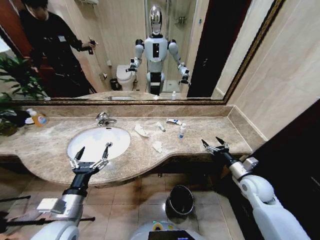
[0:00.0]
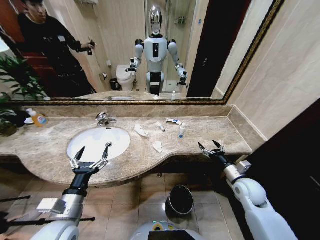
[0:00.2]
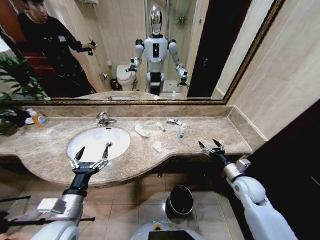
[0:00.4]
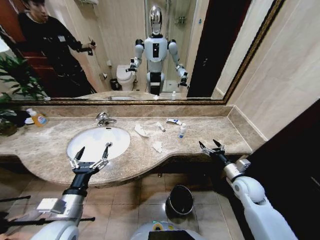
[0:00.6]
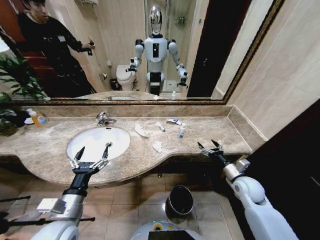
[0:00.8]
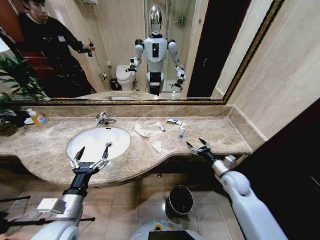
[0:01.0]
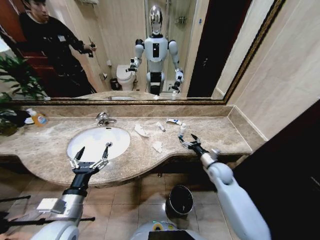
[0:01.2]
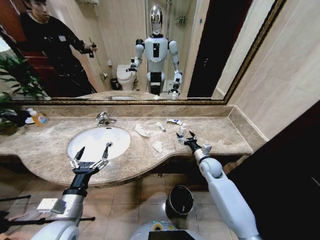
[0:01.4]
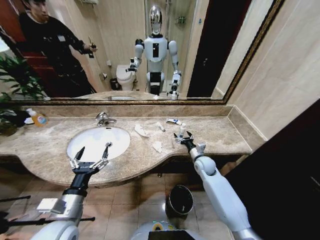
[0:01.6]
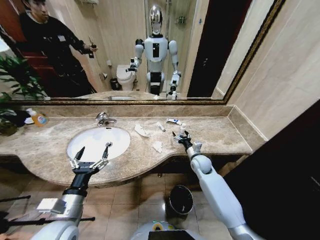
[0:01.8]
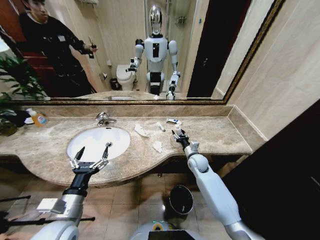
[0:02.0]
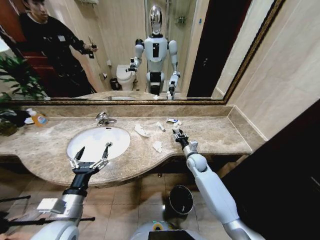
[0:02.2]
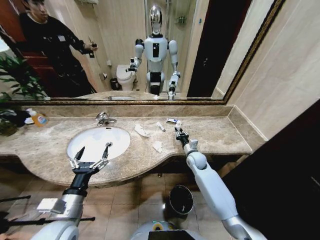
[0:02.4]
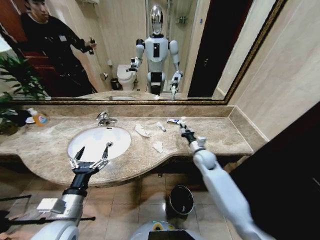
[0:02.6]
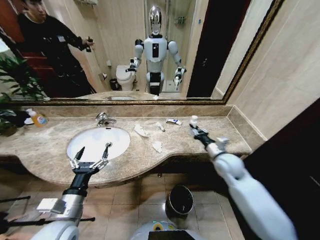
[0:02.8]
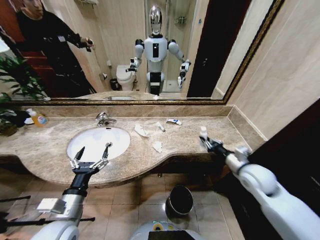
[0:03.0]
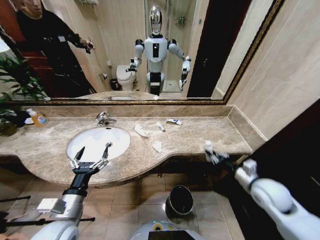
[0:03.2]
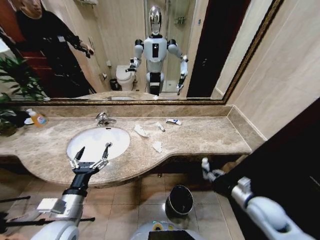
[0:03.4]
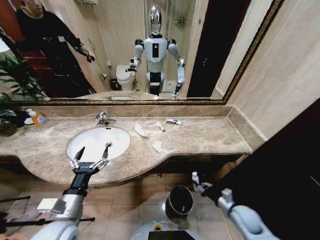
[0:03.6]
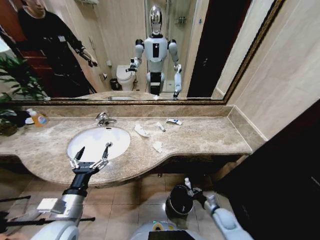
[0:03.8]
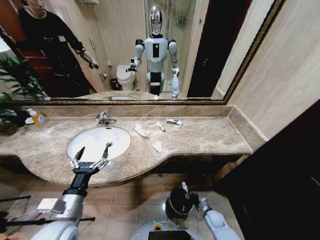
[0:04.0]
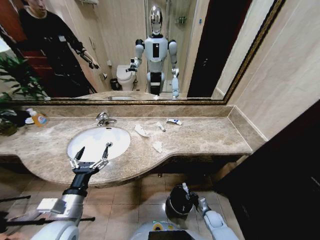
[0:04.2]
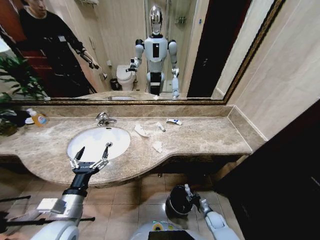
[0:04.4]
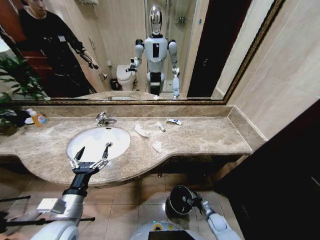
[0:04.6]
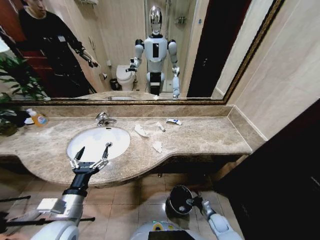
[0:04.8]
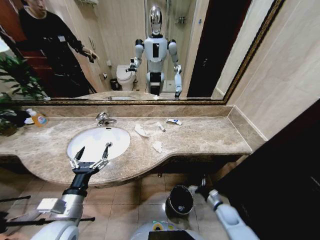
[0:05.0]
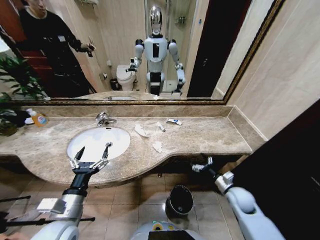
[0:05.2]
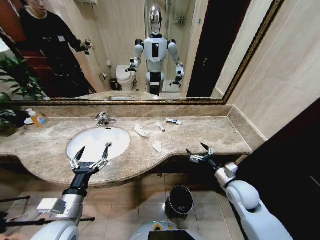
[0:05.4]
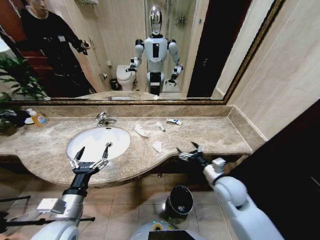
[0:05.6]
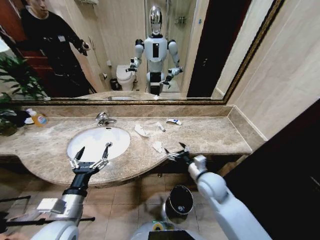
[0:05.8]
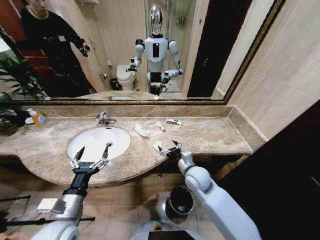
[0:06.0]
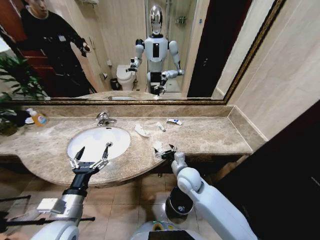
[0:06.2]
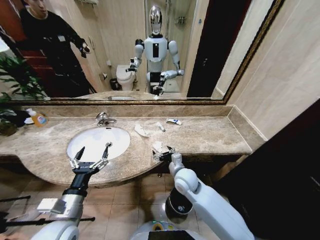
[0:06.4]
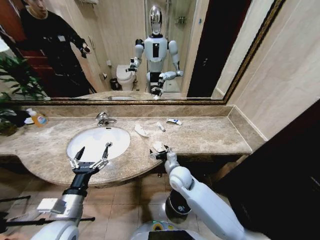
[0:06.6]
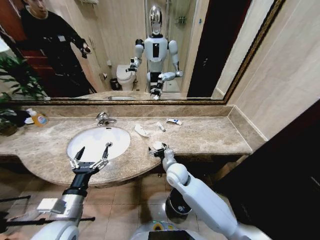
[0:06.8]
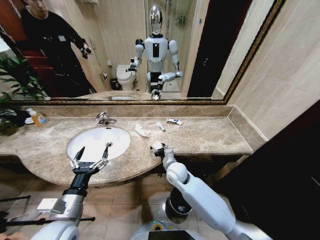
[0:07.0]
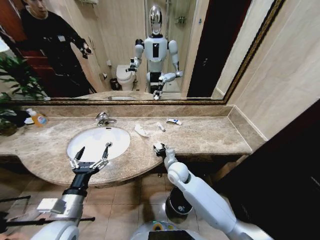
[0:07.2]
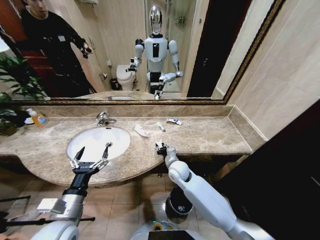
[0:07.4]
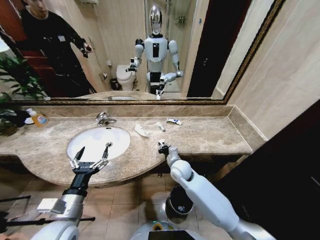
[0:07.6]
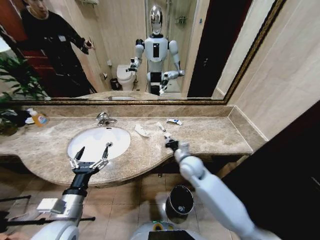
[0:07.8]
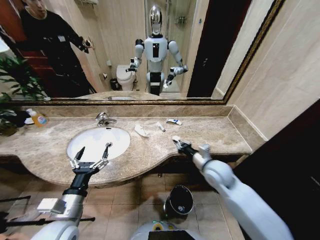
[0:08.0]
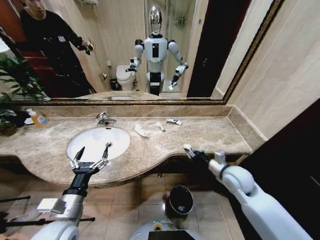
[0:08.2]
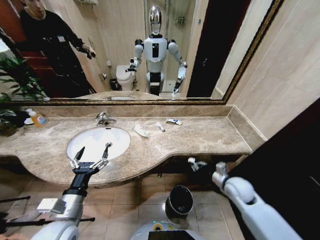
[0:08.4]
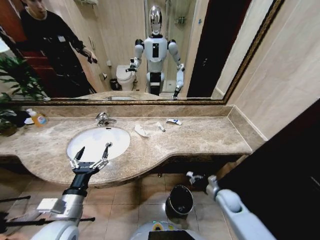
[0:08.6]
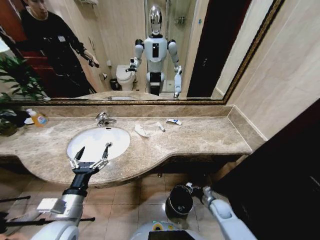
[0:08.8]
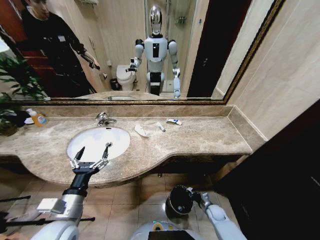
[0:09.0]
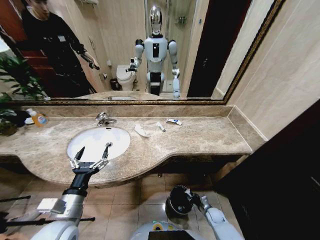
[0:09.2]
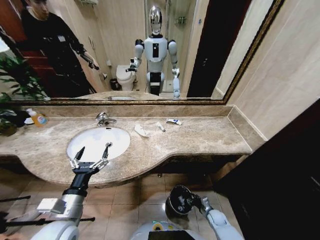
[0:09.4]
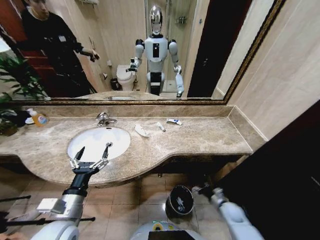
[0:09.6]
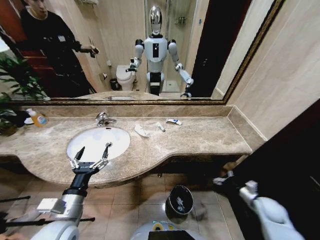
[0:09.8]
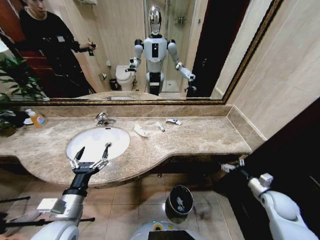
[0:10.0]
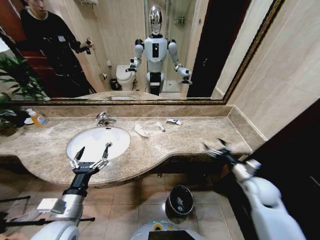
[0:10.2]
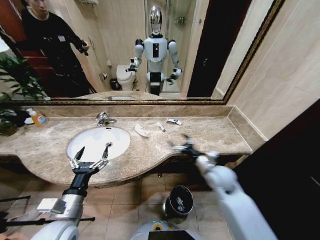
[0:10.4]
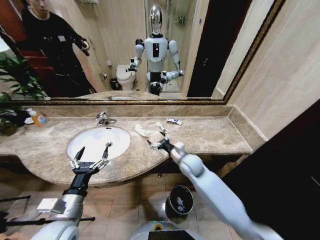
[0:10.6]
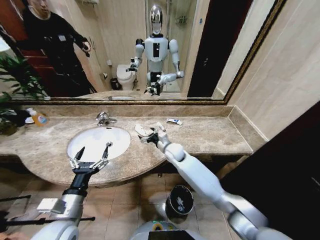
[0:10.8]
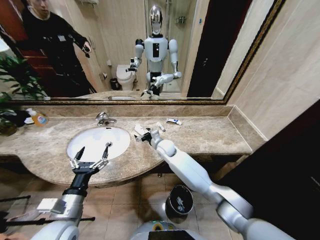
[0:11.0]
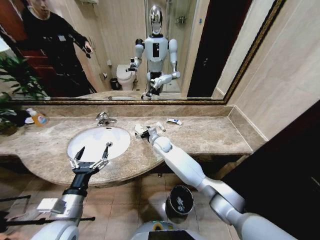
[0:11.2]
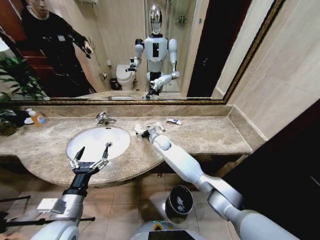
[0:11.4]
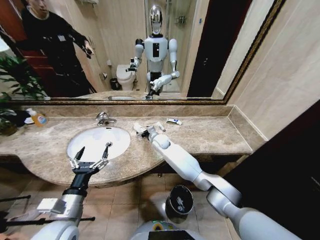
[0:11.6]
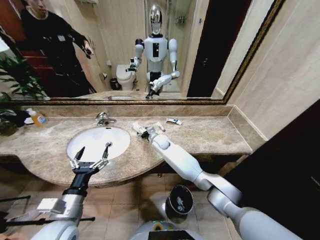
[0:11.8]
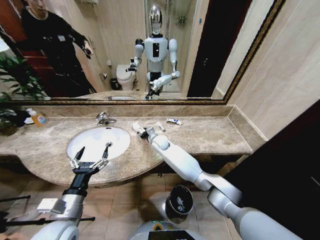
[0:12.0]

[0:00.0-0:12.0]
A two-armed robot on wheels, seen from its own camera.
Task of the whole recording: Pick up the trash from the sink and place it in the trash bin.
0:01.6 to 0:03.0: The right gripper moves upward, backward and to the right, some 20 cm, and closes up.
0:03.0 to 0:04.4: The right gripper moves downward, approximately 40 cm.
0:04.4 to 0:06.0: The right gripper travels upward and to the left by approximately 35 cm, and opens its fingers.
0:06.0 to 0:07.6: The right gripper shifts roughly 10 cm forward and to the left, and closes up.
0:07.6 to 0:09.0: The right gripper goes some 40 cm downward, to the right and backward.
0:09.0 to 0:10.4: The right gripper travels upward by approximately 35 cm, and opens up.
0:10.4 to 0:12.0: The right gripper heads to the left and forward, covering roughly 30 cm, and closes up.

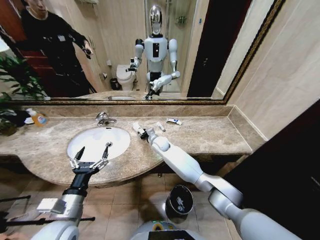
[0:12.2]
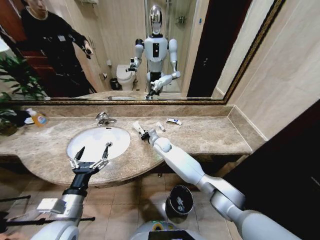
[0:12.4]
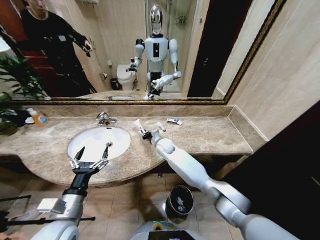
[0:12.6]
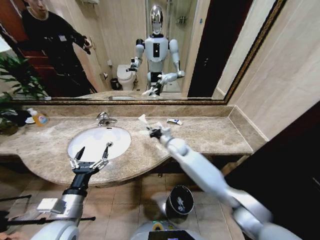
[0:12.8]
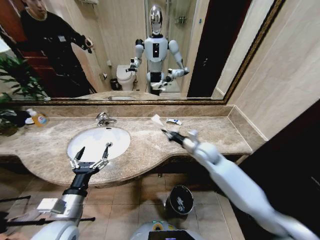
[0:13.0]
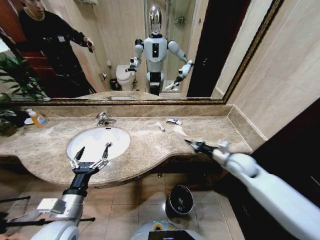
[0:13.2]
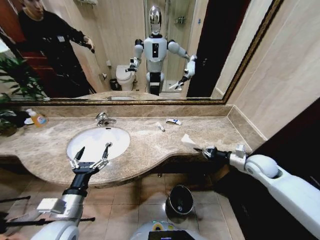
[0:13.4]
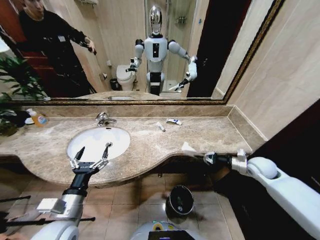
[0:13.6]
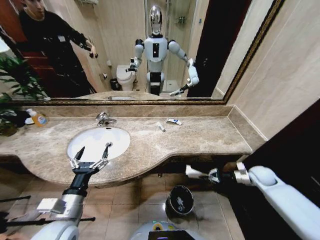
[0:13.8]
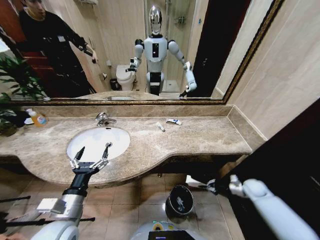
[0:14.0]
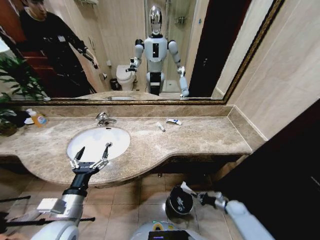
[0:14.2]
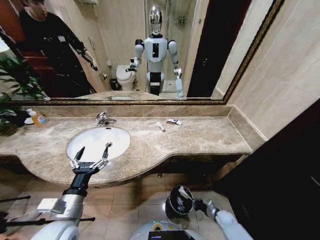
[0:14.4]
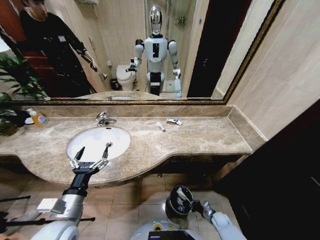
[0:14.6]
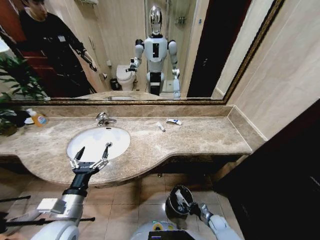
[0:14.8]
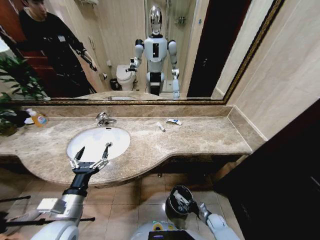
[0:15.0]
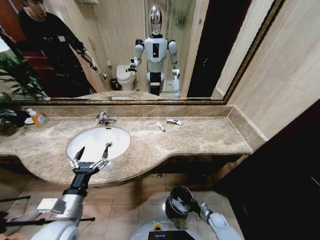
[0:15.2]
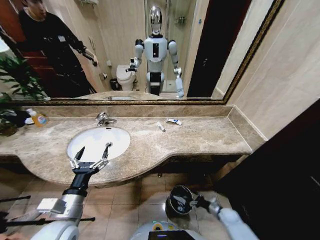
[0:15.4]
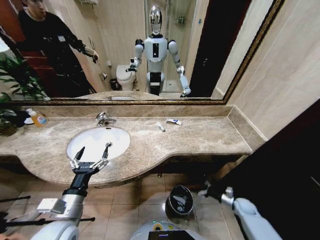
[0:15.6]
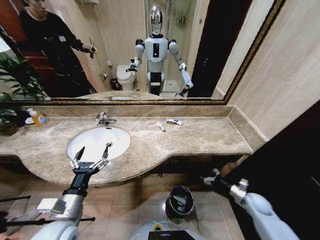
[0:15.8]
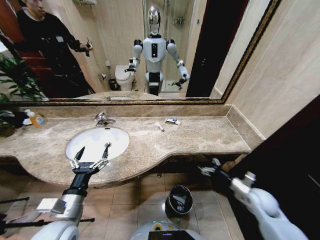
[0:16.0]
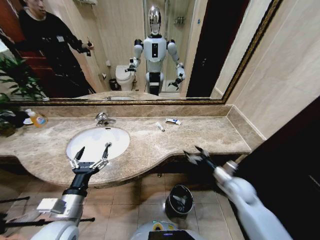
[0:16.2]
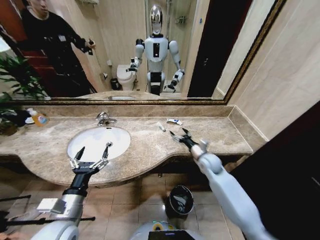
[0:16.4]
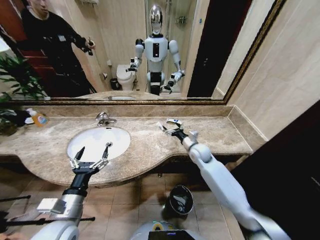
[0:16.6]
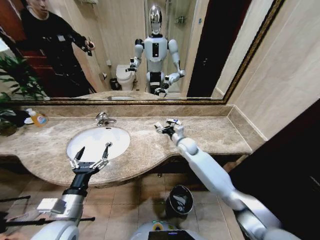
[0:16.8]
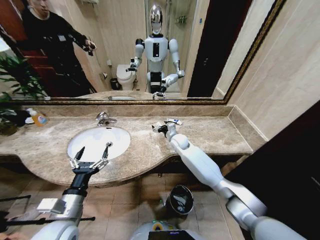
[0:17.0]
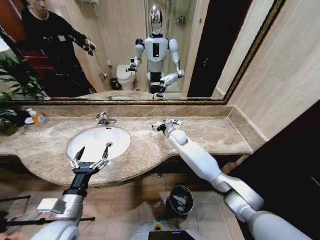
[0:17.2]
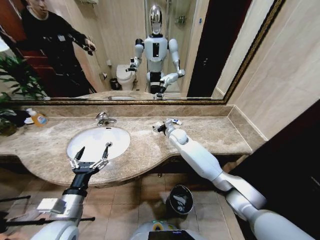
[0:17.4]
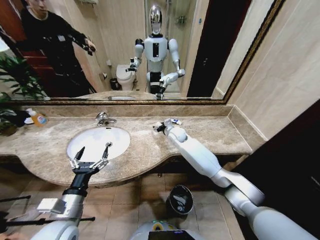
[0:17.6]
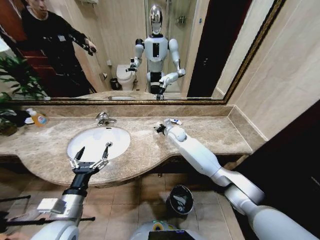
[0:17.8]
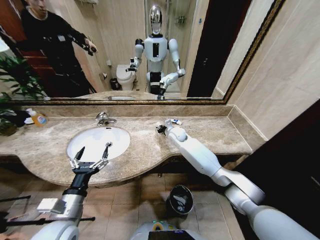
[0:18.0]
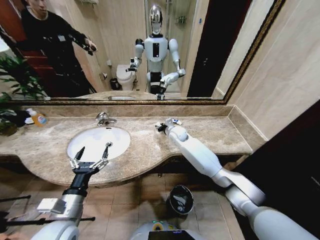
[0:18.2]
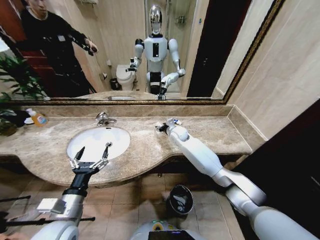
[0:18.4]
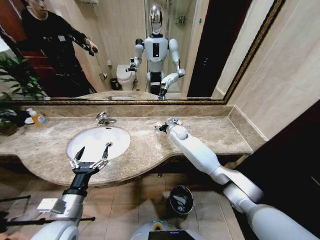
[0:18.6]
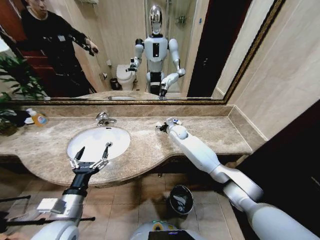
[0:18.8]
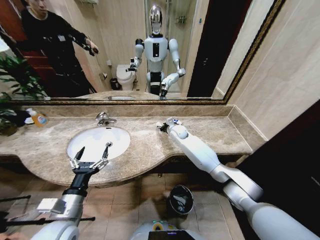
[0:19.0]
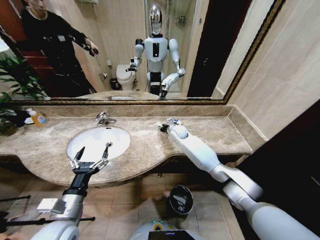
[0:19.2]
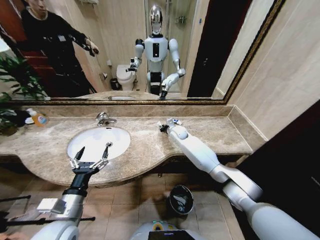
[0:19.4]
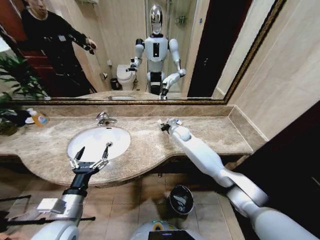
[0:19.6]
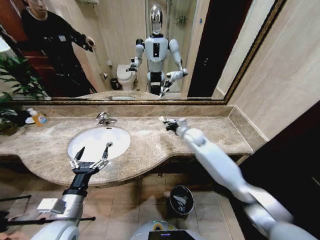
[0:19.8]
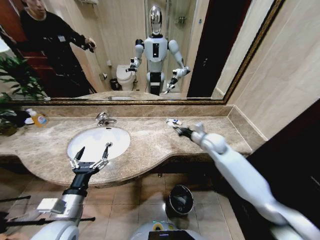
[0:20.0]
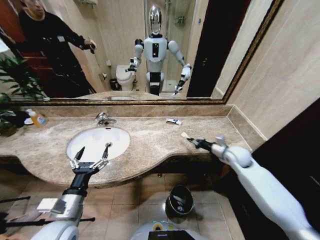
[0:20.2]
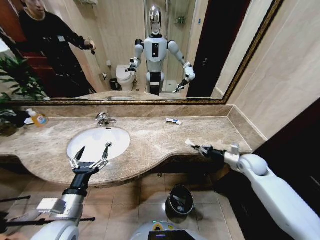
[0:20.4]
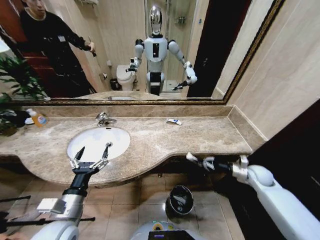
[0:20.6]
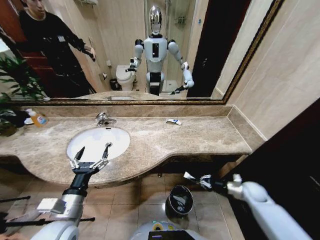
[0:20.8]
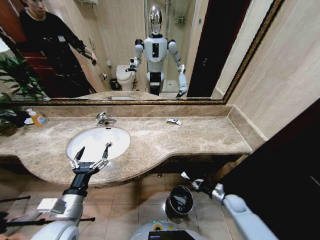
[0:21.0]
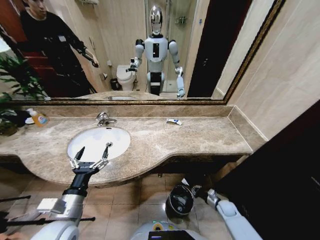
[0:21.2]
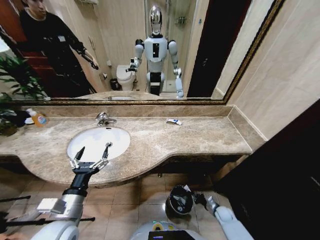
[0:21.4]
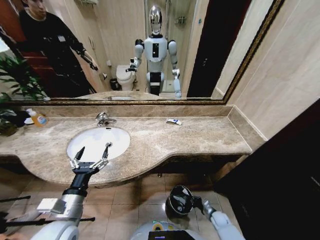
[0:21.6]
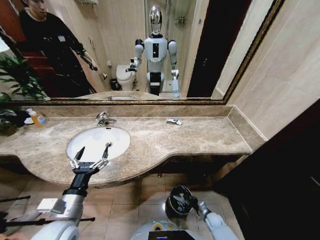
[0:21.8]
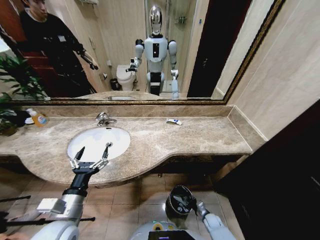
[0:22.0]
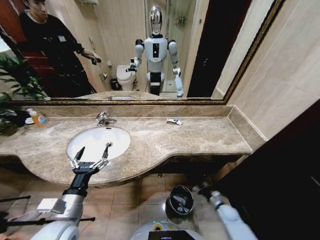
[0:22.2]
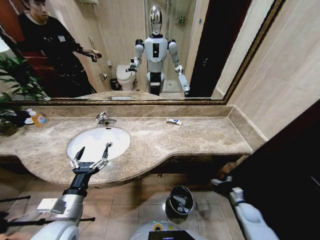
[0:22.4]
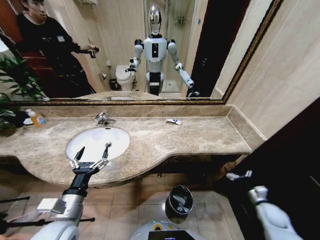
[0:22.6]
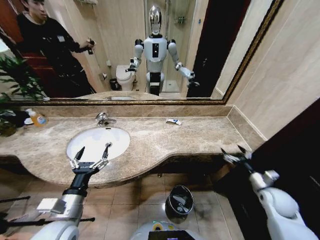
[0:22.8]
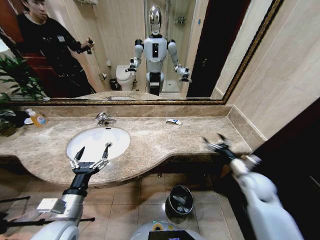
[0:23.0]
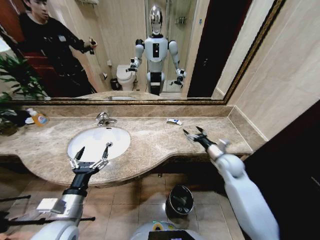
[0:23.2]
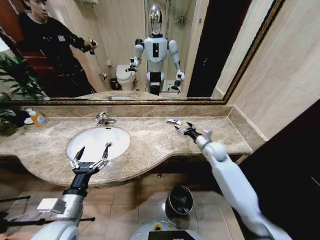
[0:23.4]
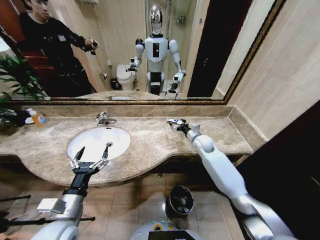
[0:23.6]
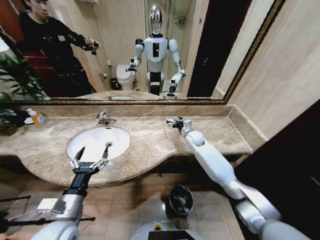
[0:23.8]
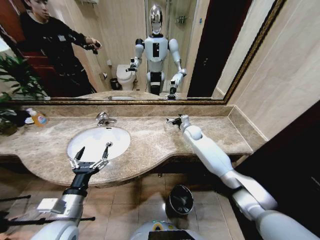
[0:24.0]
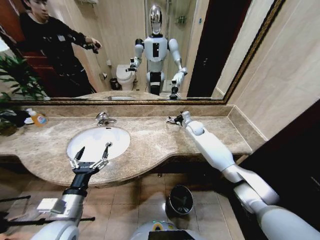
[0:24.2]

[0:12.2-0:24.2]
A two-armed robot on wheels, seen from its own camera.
Task of the whole recording: Pick up the trash from the sink and place it in the trash bin.
0:12.2 to 0:13.8: The right gripper travels to the right by some 50 cm, and closes its fingers.
0:13.8 to 0:15.2: The right gripper goes roughly 35 cm downward, to the left and backward, and opens.
0:15.2 to 0:16.6: The right gripper is displaced upward and forward by about 40 cm, and opens its fingers.
0:16.6 to 0:18.2: The right gripper shifts approximately 15 cm forward and to the left, and closes.
0:18.2 to 0:19.8: The right gripper is displaced to the right by approximately 5 cm, and opens, then closes again.
0:19.8 to 0:21.2: The right gripper travels downward, backward and to the right by approximately 50 cm.
0:21.2 to 0:22.6: The right gripper heads upward and to the right, covering roughly 20 cm, and opens.
0:22.6 to 0:24.2: The right gripper goes some 50 cm forward, to the left and upward.
